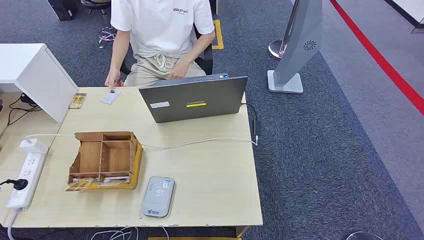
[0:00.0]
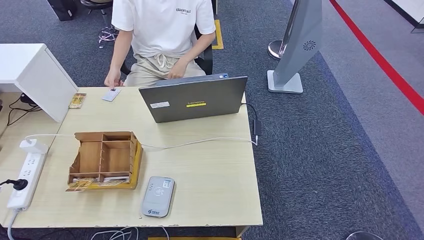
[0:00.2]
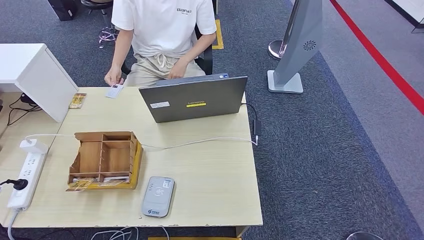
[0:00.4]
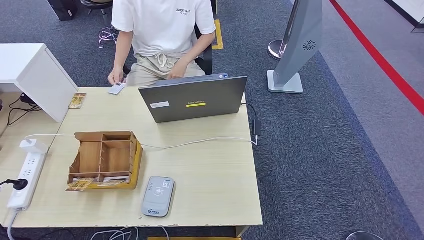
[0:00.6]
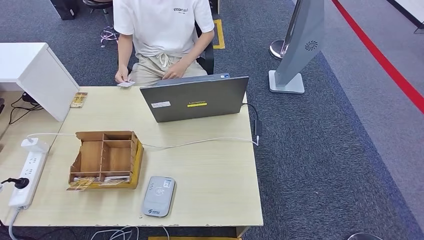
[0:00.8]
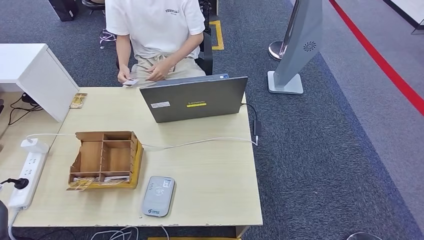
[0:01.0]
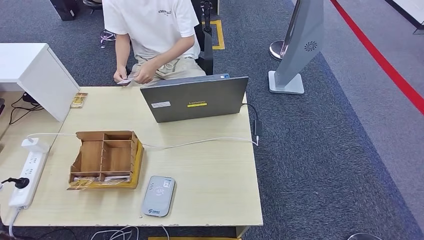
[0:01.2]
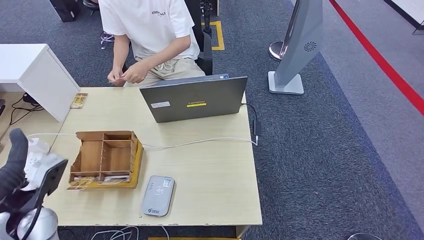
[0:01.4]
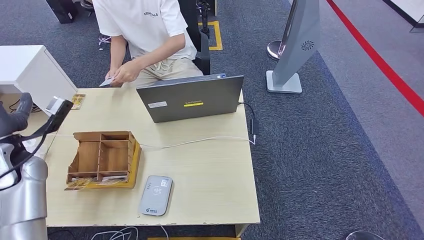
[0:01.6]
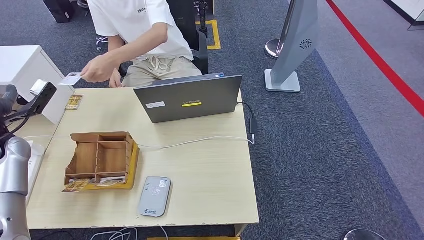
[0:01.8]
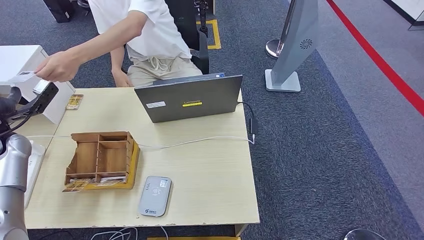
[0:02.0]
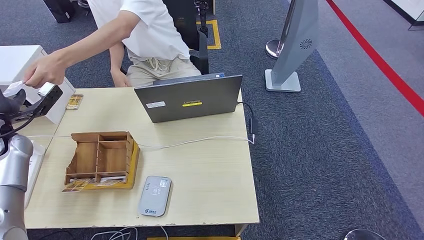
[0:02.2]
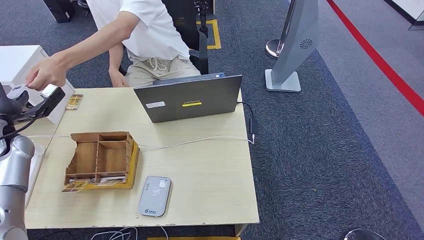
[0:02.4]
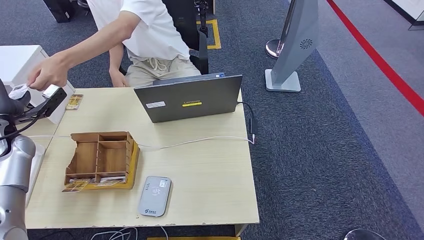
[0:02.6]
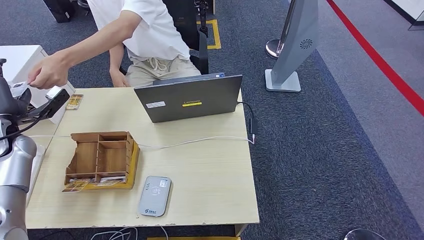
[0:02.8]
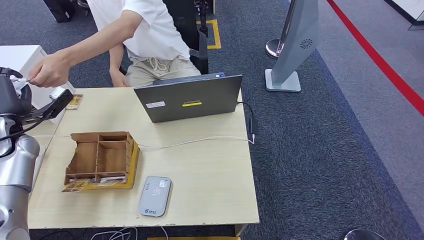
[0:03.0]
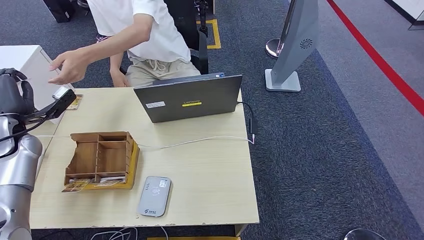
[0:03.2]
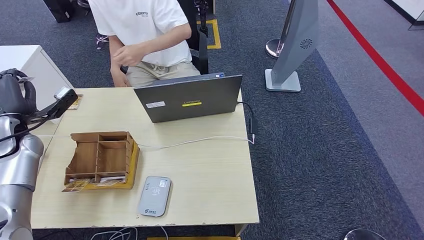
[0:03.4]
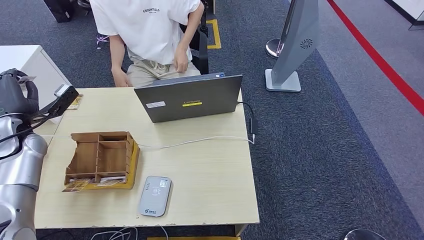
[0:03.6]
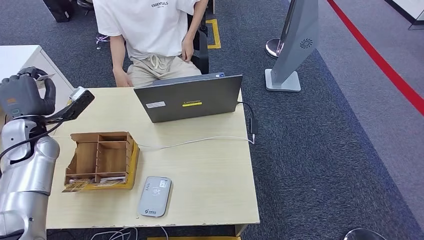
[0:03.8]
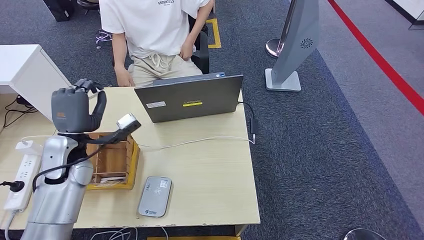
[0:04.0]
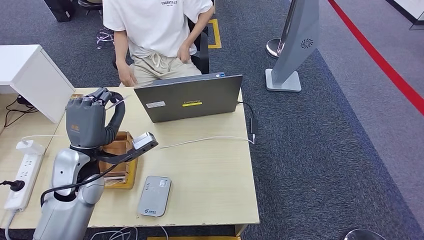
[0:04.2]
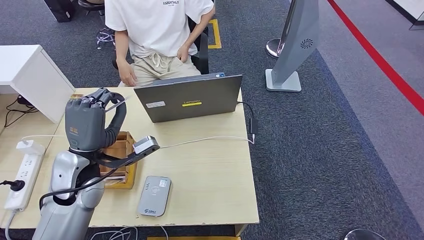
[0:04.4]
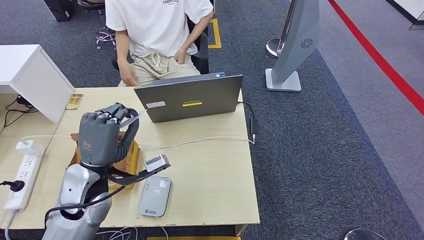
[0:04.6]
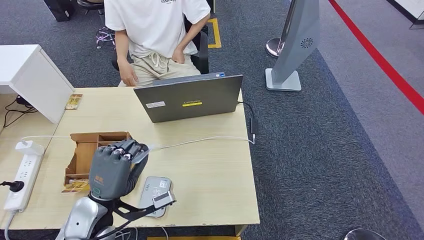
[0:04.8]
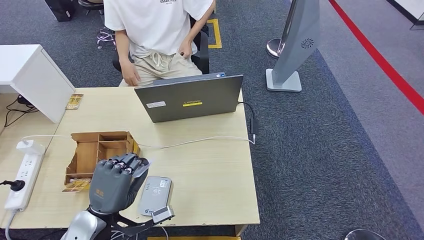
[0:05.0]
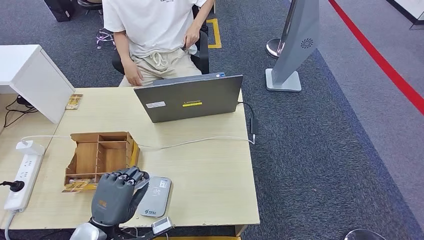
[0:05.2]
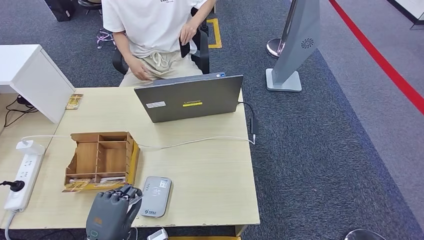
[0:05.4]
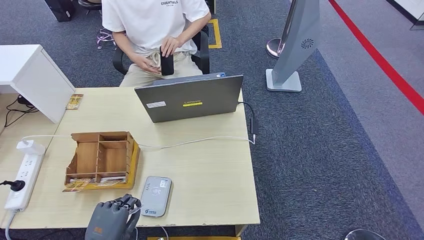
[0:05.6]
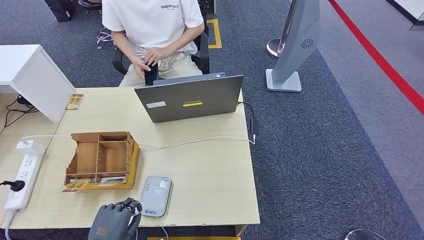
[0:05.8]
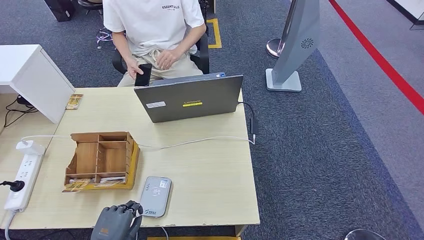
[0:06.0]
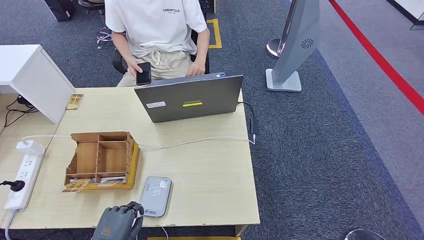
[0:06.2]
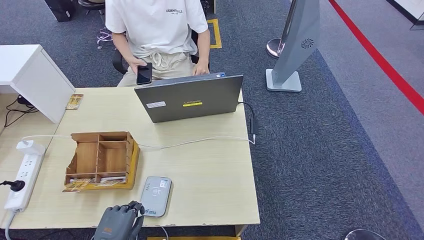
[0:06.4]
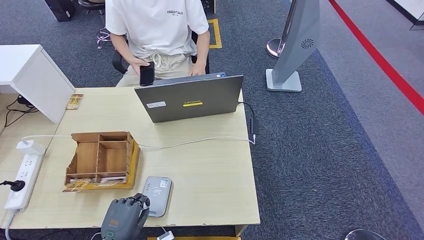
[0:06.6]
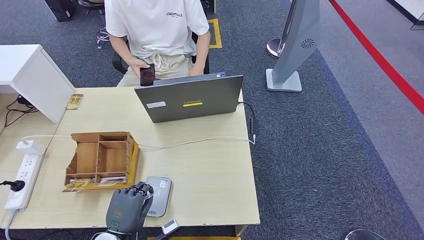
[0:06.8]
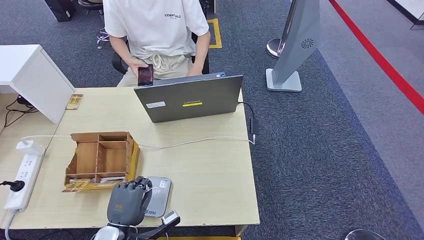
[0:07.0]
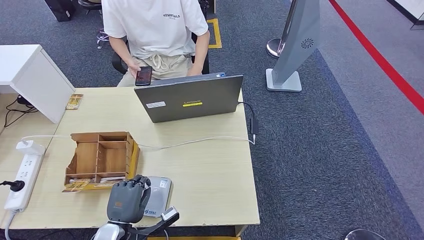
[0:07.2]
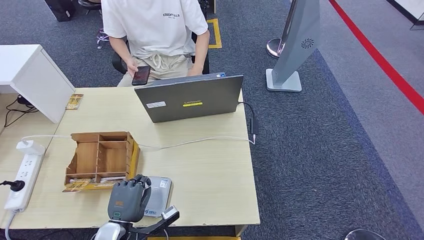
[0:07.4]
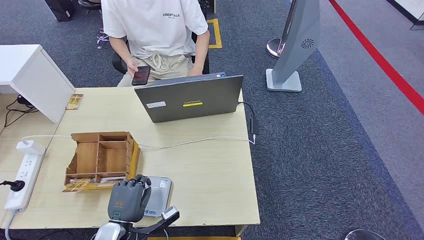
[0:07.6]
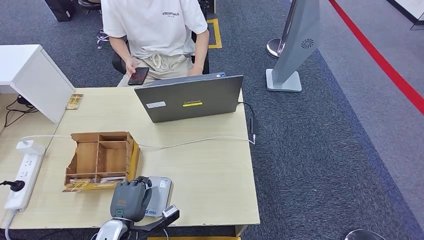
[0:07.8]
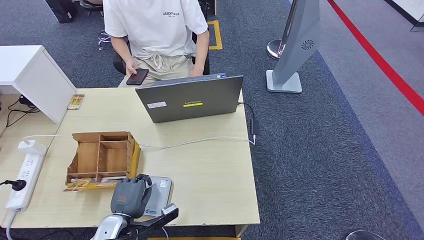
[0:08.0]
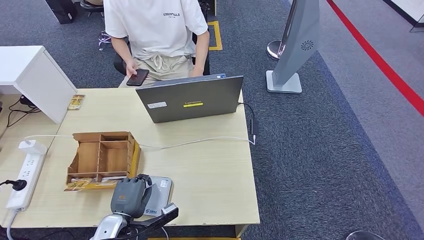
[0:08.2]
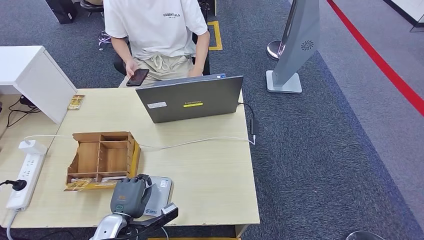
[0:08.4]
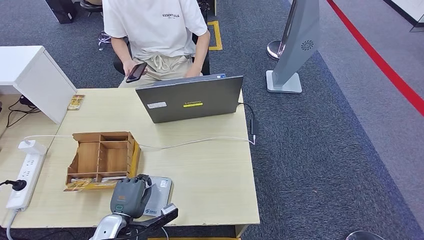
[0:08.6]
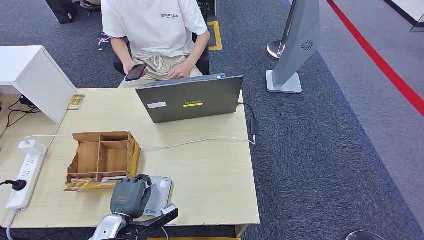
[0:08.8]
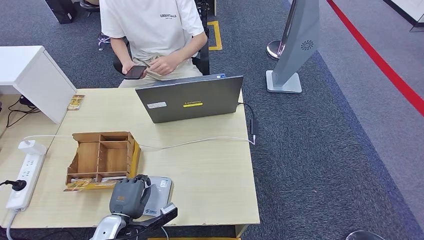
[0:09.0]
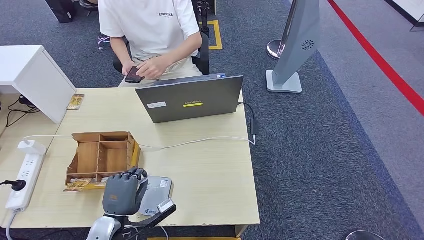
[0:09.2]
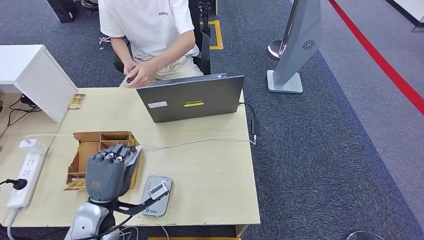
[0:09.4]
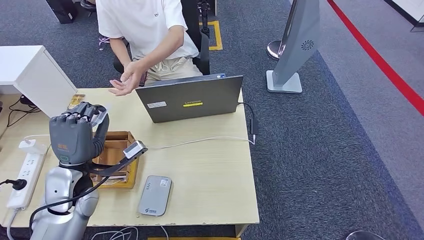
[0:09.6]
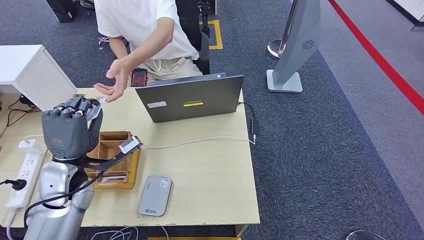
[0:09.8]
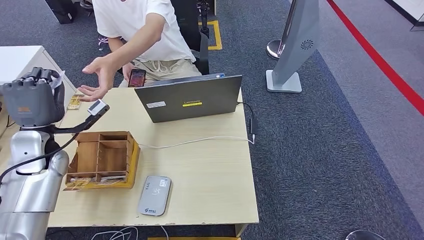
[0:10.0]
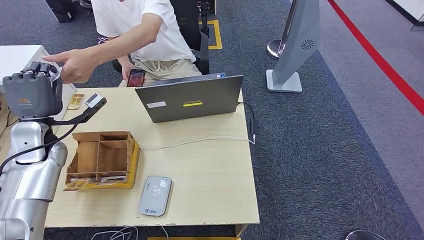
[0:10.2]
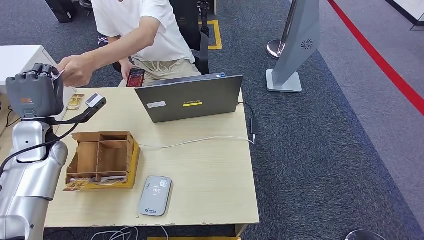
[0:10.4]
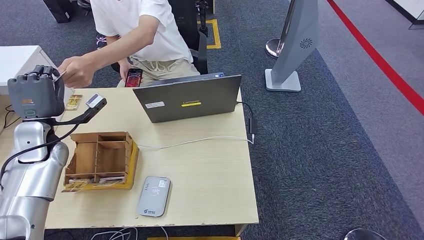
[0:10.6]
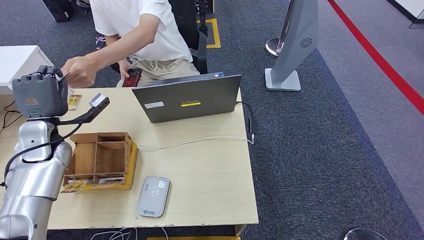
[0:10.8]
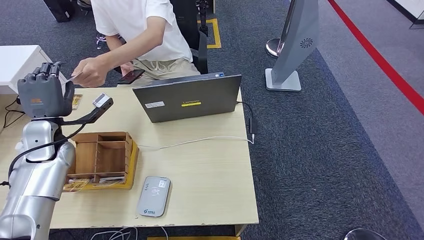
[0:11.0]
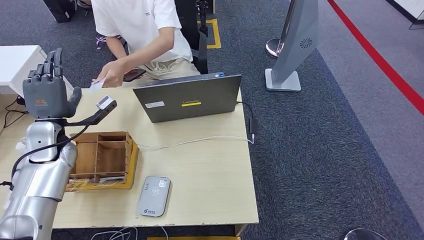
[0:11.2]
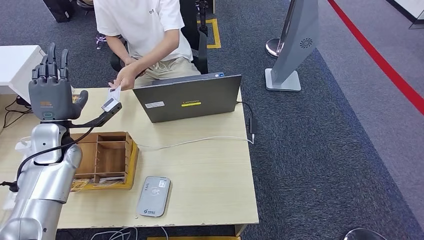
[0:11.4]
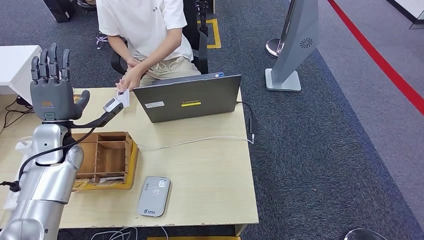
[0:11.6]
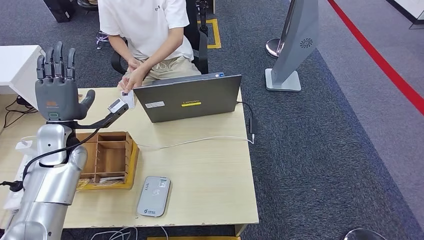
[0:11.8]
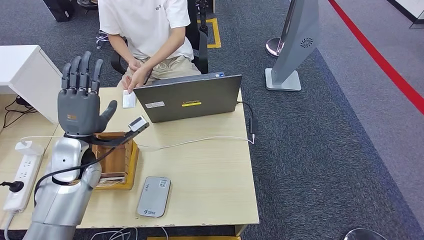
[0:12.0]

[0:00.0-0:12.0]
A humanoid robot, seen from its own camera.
Step, 0:00.0 to 0:03.8: Take the ID card from the person's hand.
Step, 0:04.2 to 0:08.8: Place the ID card on the card reader.
Step, 0:09.0 to 0:11.0: Hand the ID card to the person.
0:01.6 to 0:03.0: The left hand is displaced forward and to the left by about 10 cm.
0:03.0 to 0:04.4: The left hand heads to the right and backward, covering about 25 cm.
0:04.4 to 0:06.0: The left hand goes some 25 cm backward and downward.
0:06.0 to 0:07.6: The left hand shifts roughly 5 cm forward.
0:07.6 to 0:09.0: The hands make only small movements.
0:09.0 to 0:10.4: The left hand travels forward, upward and to the left by about 30 cm.

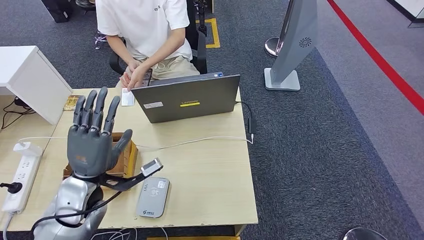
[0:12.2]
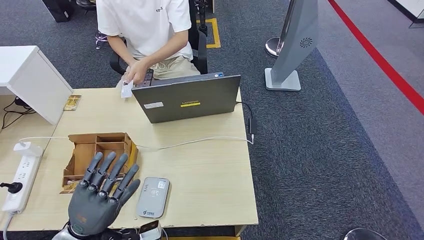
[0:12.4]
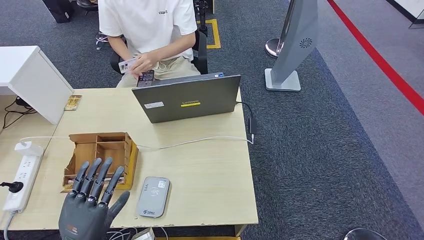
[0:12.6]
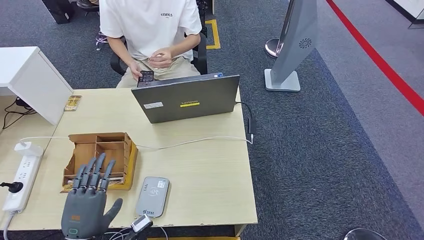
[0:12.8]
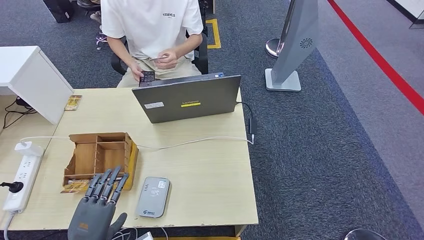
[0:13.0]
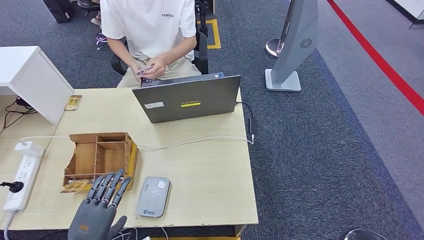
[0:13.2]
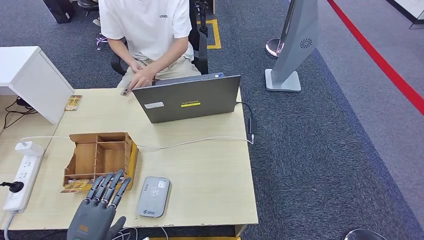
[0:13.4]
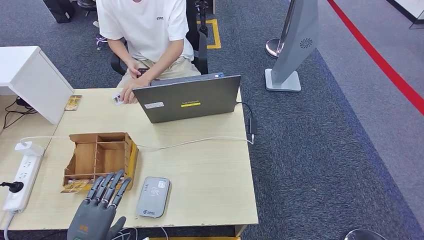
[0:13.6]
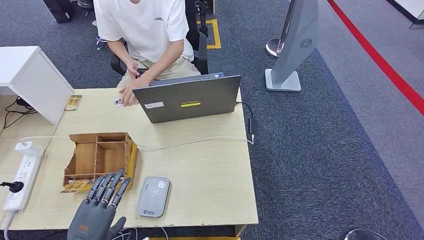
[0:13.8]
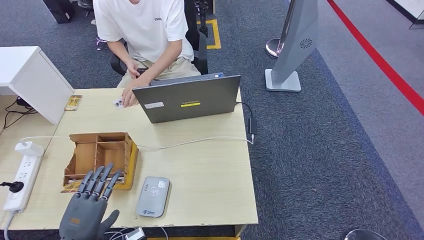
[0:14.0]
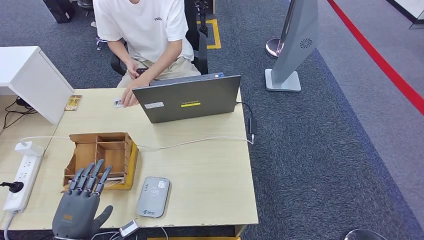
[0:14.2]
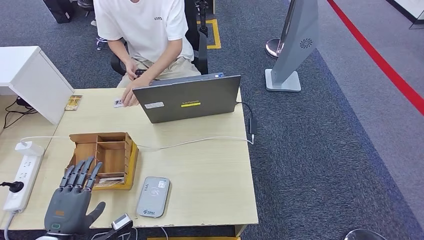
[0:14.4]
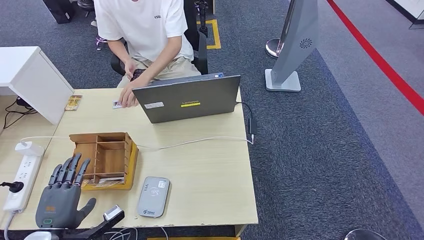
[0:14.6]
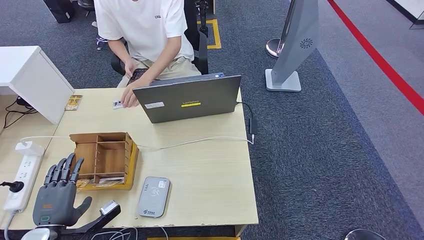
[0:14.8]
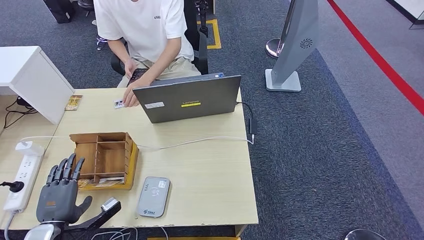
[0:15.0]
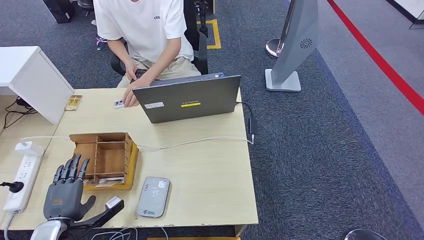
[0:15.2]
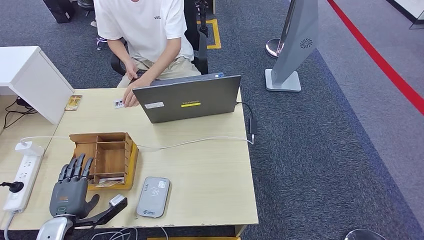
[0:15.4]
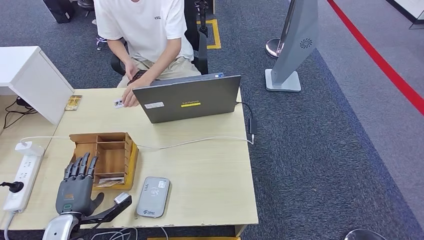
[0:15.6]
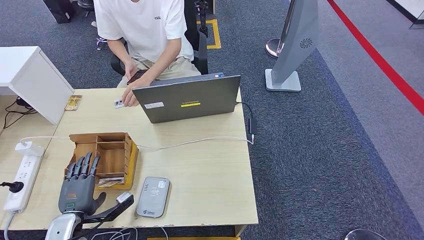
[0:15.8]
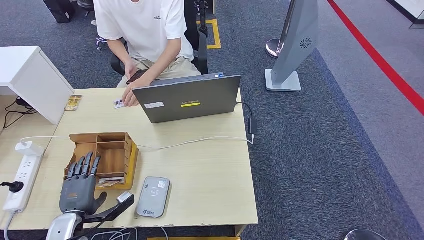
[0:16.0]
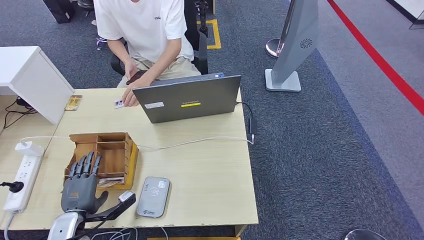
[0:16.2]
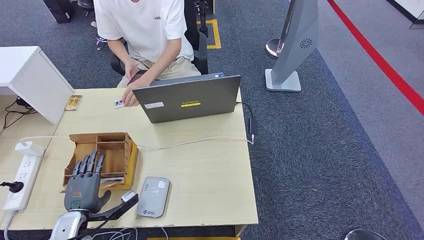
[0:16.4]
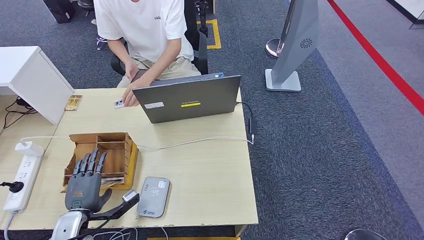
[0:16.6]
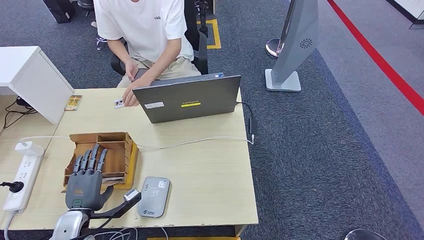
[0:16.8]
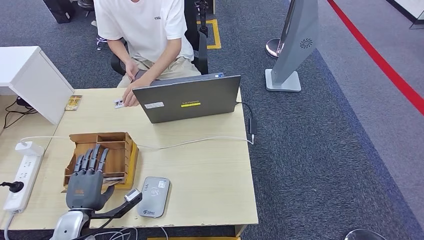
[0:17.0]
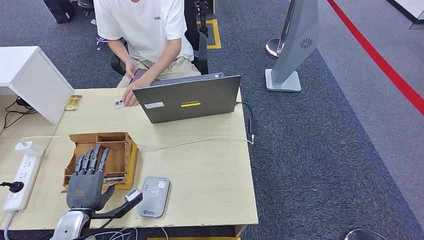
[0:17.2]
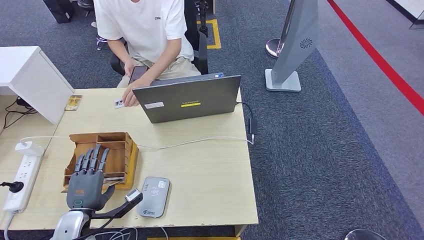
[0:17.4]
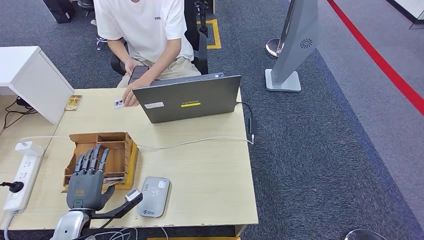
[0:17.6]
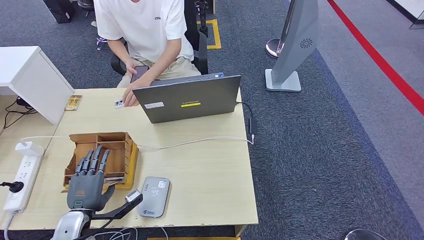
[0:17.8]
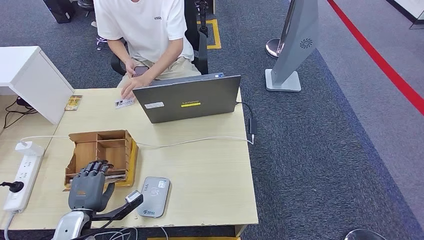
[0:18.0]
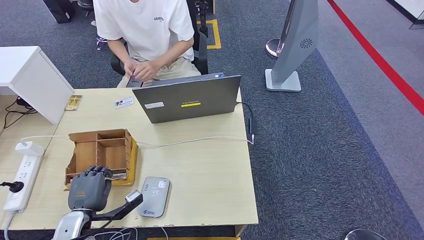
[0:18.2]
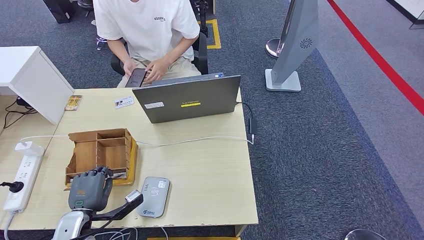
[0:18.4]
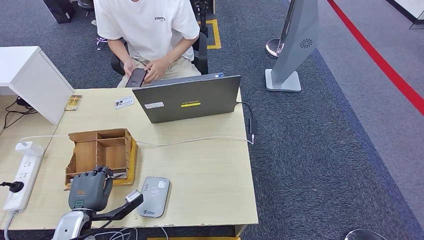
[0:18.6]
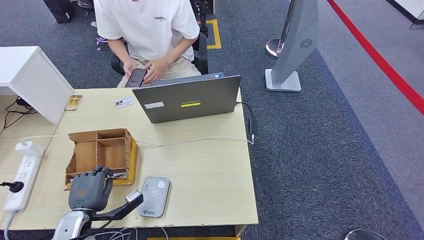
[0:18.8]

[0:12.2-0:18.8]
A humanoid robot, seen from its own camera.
0:12.2 to 0:13.8: The left hand shifts approximately 20 cm backward and downward.
0:13.8 to 0:15.4: The left hand moves forward and to the left, roughly 10 cm.
0:15.4 to 0:18.8: The hands stay close to where they were, moving slightly.
